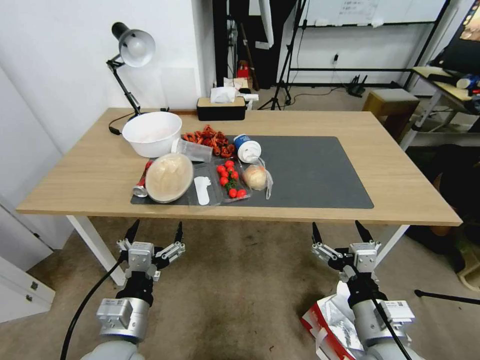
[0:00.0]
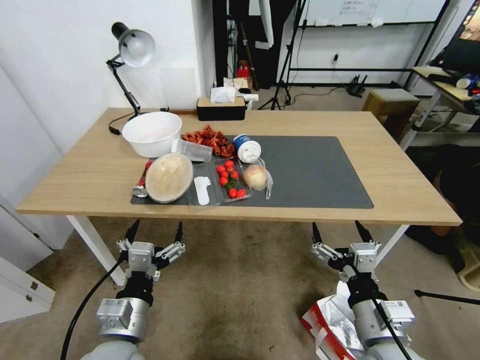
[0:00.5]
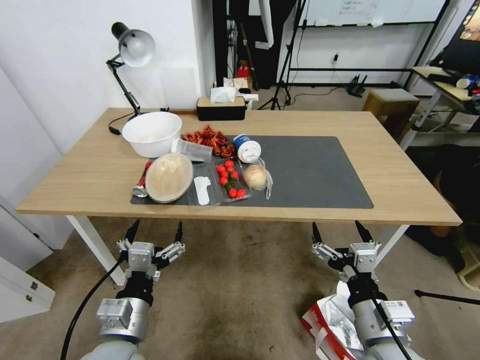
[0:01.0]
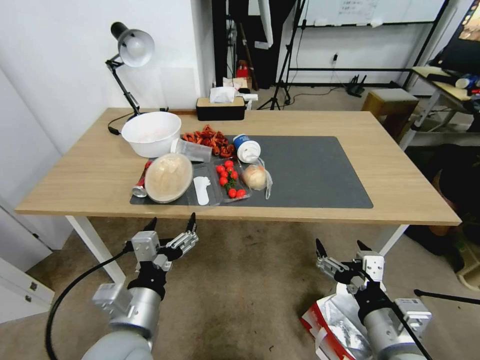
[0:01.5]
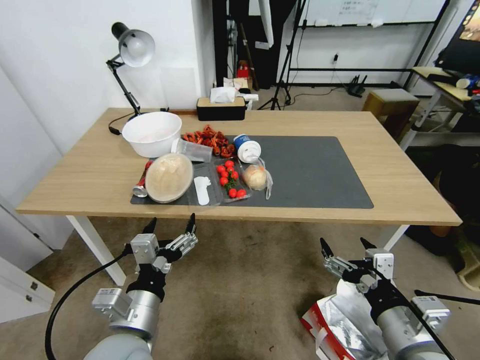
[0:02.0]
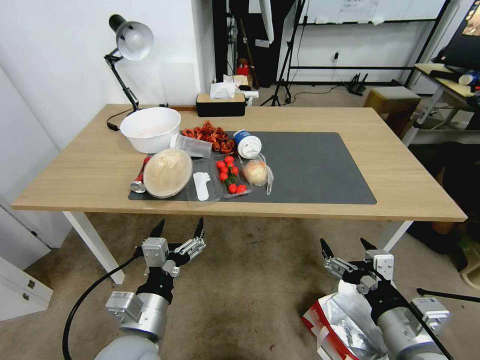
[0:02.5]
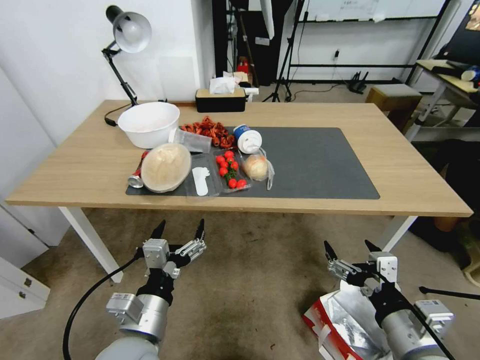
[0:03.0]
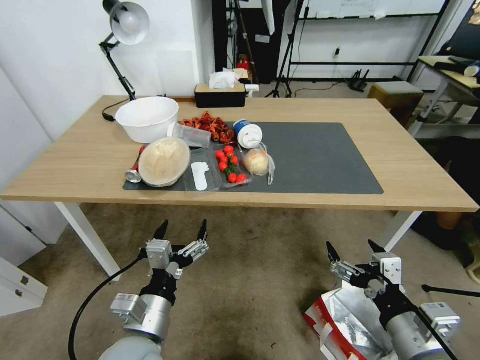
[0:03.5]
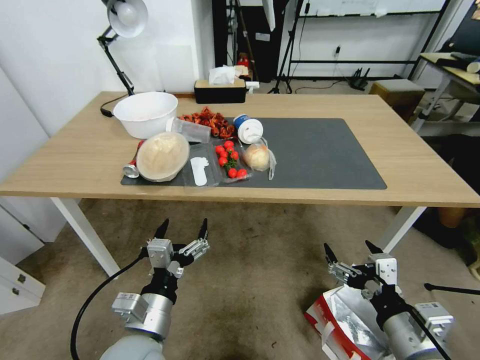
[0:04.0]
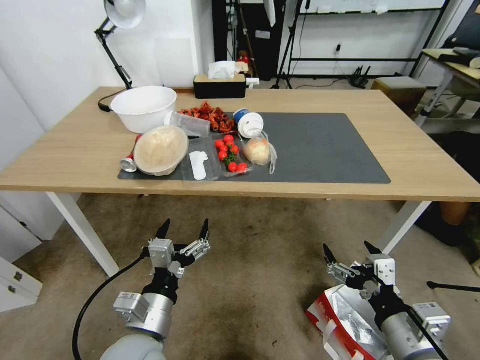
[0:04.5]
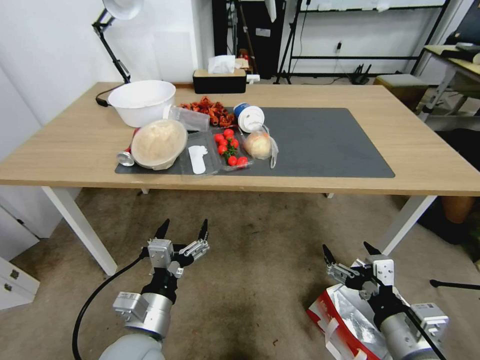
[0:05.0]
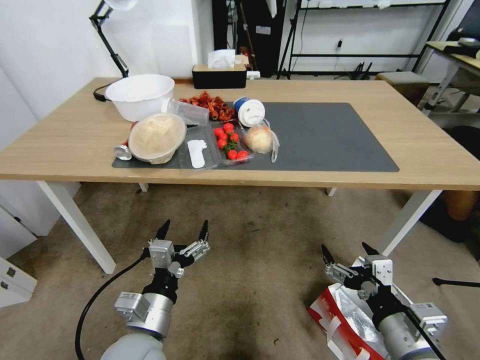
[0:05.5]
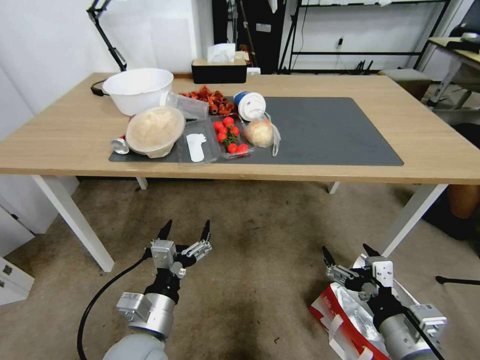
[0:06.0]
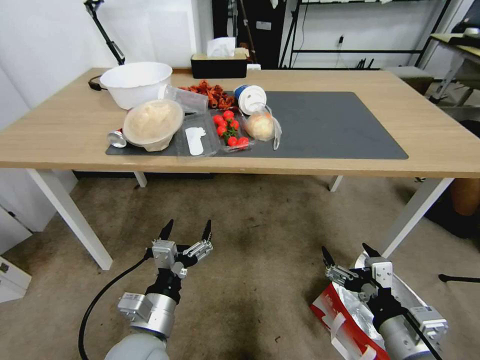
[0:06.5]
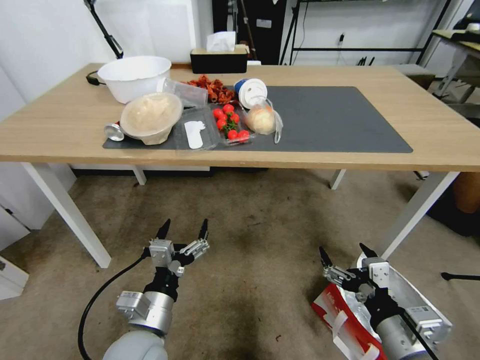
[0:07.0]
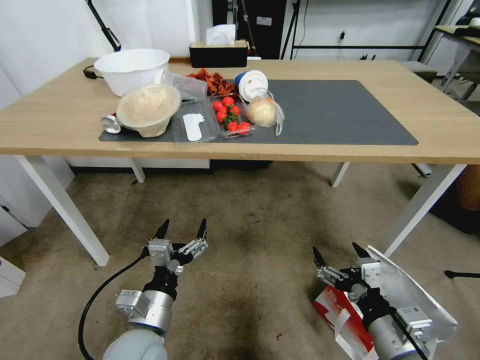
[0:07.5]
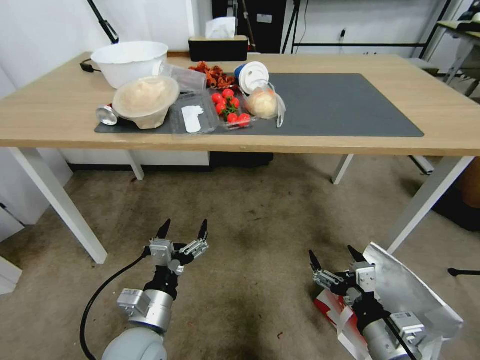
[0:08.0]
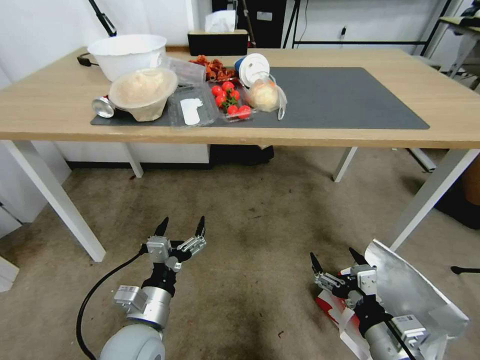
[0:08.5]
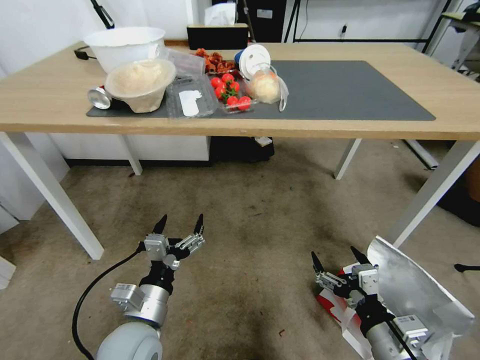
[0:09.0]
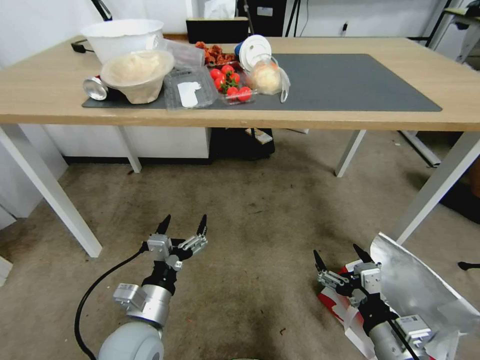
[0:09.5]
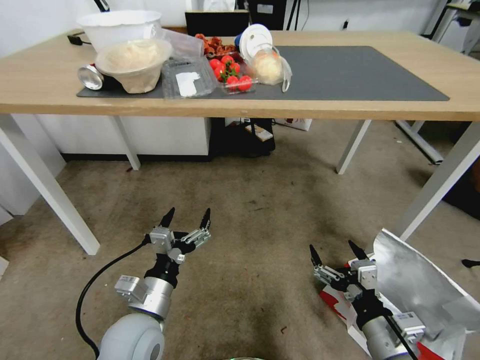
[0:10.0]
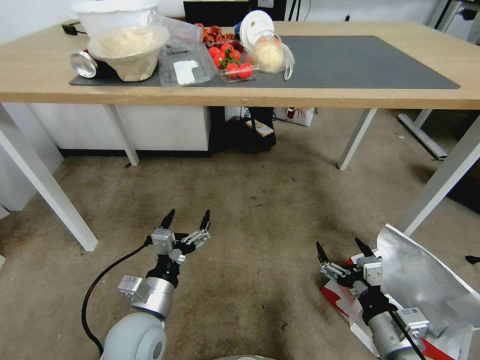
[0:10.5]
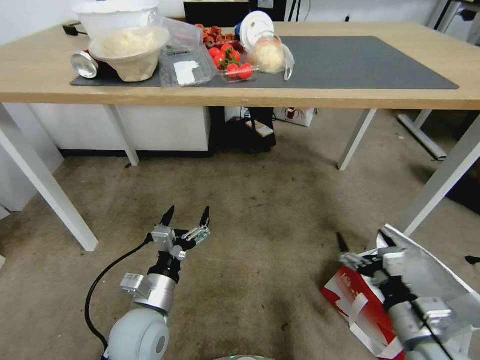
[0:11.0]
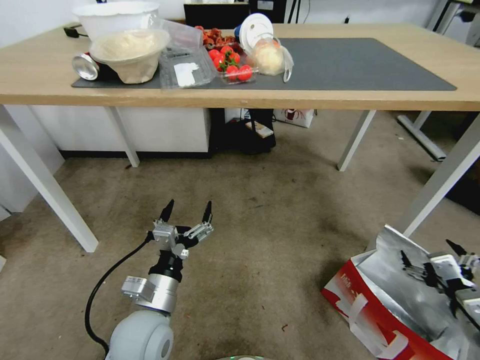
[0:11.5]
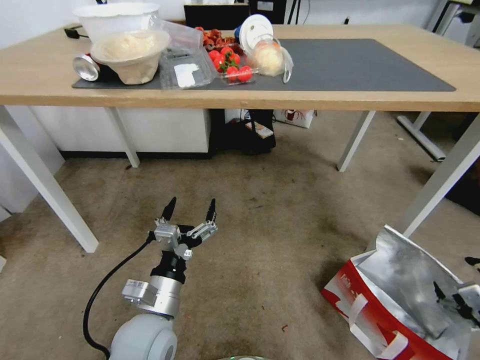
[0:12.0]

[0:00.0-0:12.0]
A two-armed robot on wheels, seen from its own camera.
Task of the whole recording: Pick up the food delivery bag from the floor and place it on the table.
0:10.0 to 0:12.0: The right gripper is displaced to the right by roughly 25 cm.

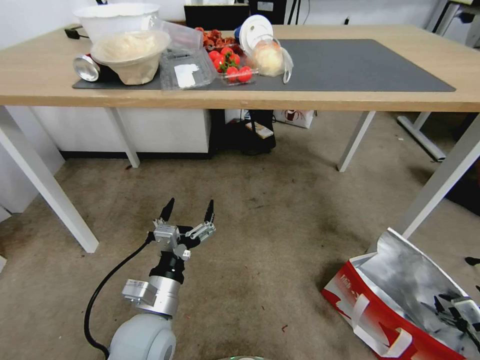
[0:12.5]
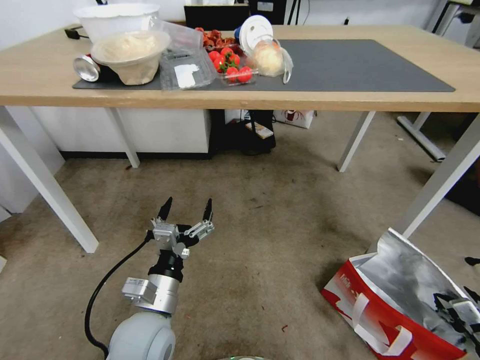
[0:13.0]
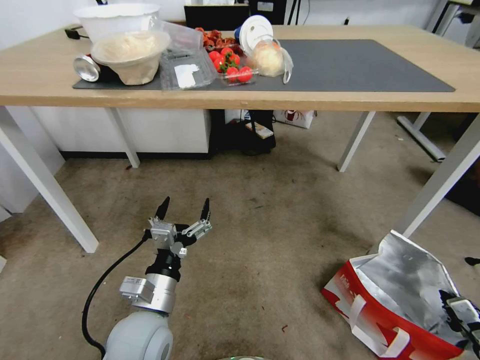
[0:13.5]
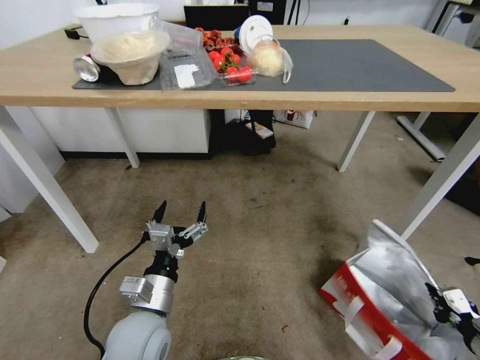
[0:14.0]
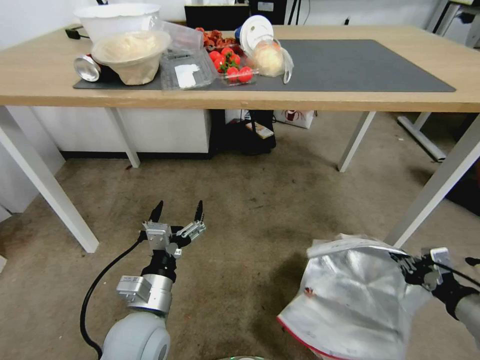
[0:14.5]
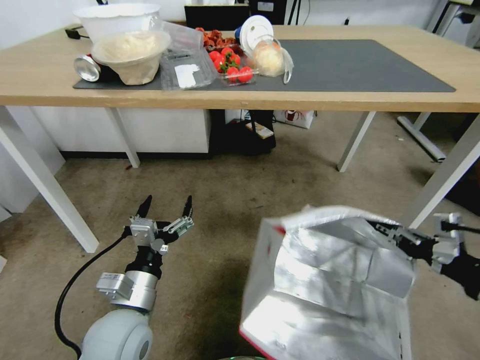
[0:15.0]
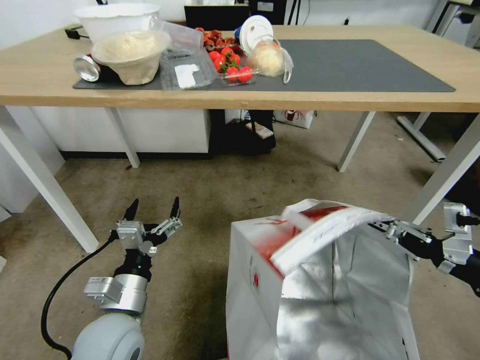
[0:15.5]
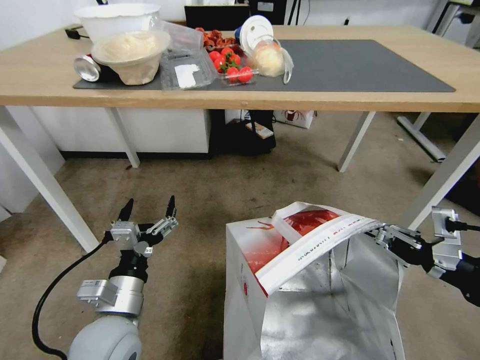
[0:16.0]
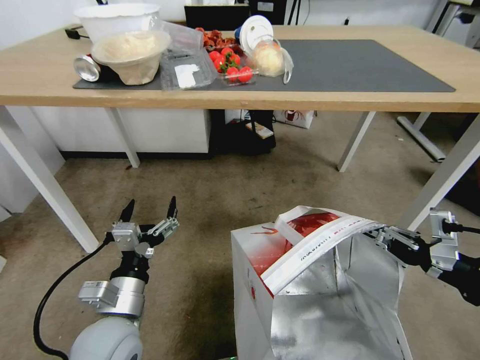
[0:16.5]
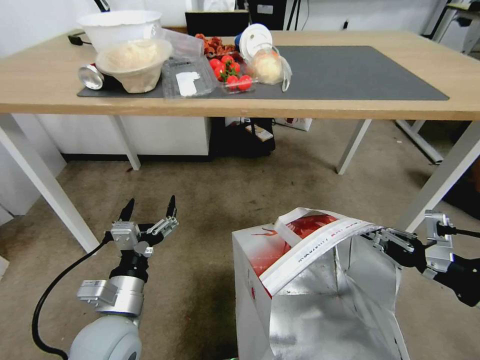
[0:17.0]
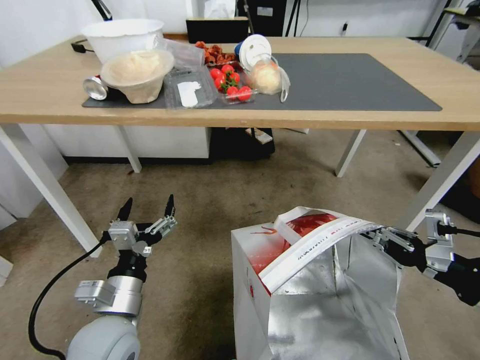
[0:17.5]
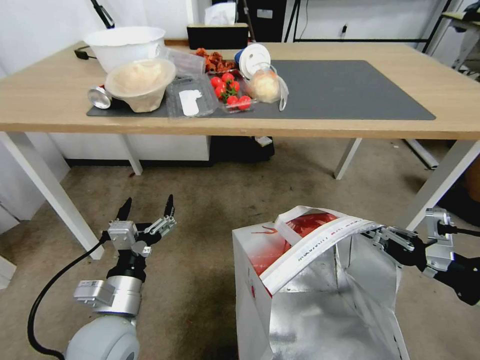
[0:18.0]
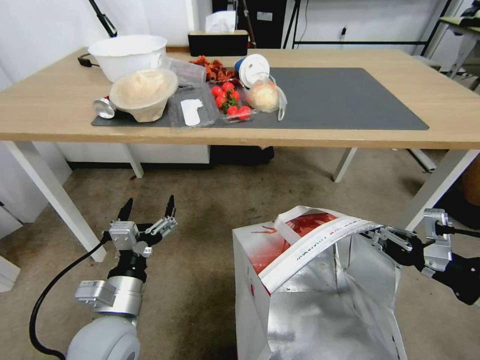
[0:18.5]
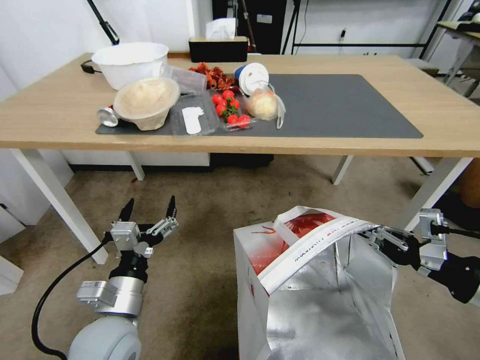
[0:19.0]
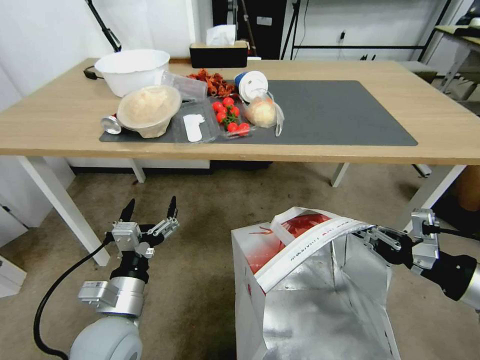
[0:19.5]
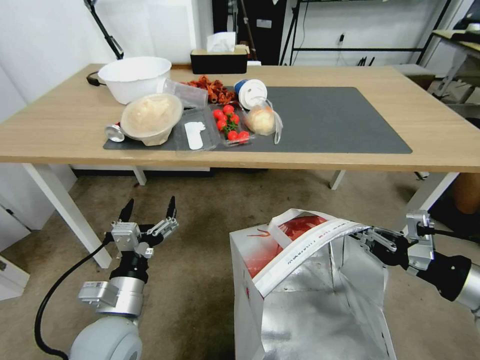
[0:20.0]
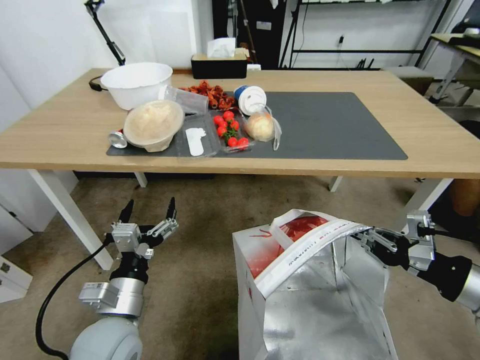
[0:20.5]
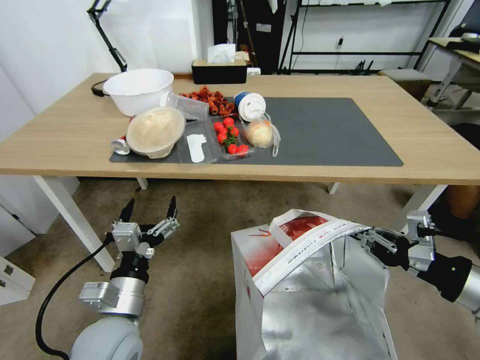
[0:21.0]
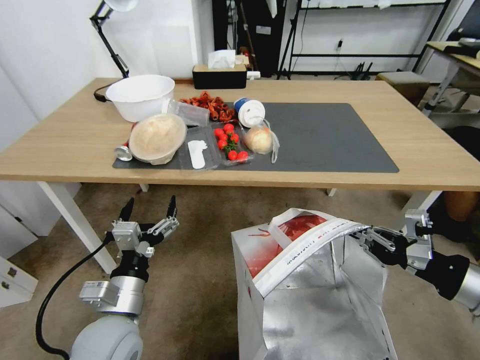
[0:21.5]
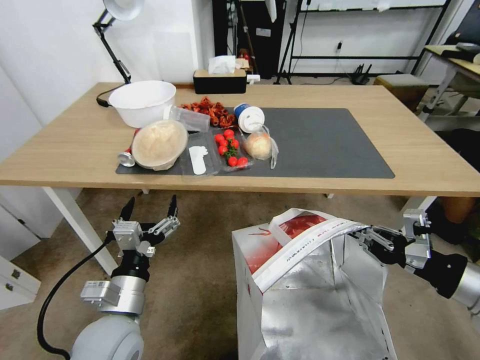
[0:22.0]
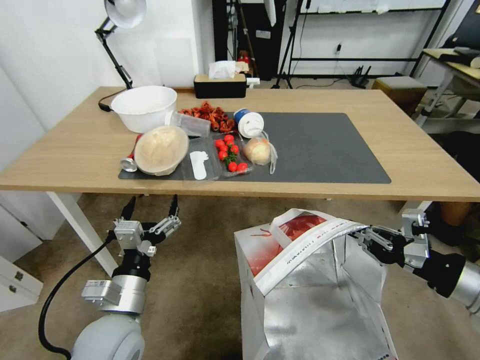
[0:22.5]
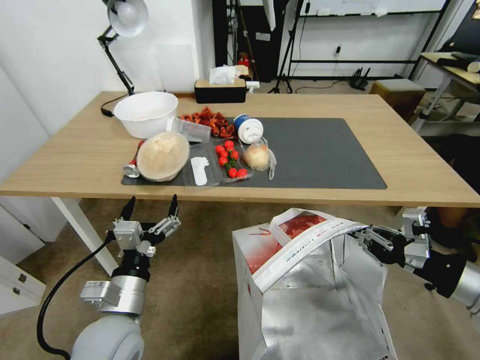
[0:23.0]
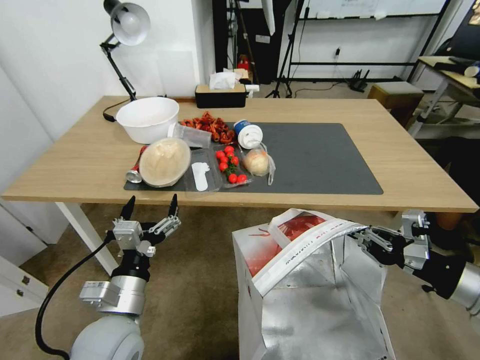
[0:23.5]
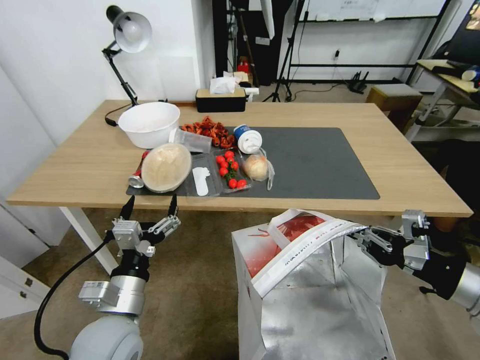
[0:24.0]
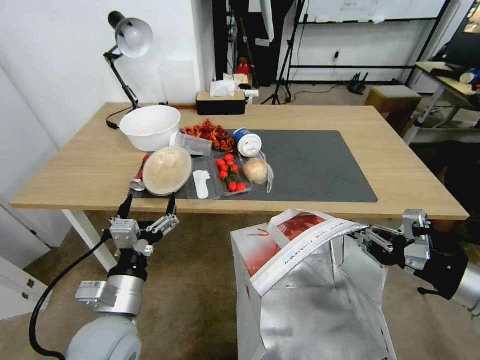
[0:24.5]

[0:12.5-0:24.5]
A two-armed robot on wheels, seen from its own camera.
Task of the whole recording: Pick up the food delivery bag from the floor and place it on the table.
0:12.5 to 0:14.5: The right gripper is displaced upward and to the left by roughly 20 cm, and closes up.
0:14.5 to 0:16.5: The right gripper moves upward, about 10 cm.

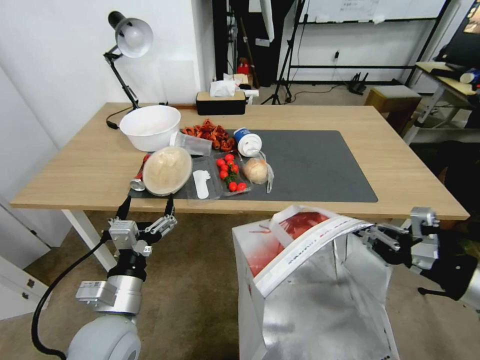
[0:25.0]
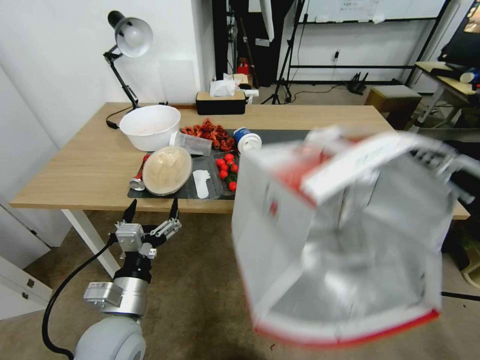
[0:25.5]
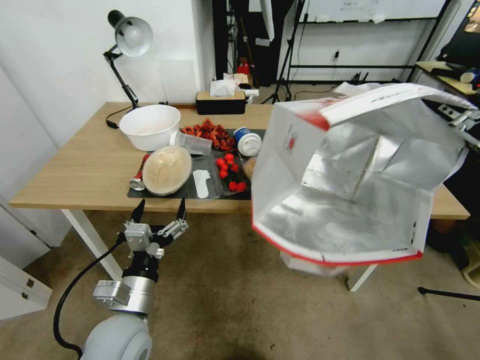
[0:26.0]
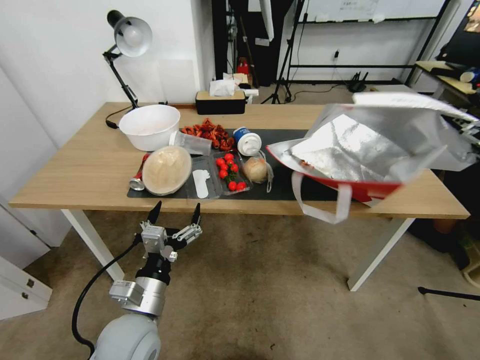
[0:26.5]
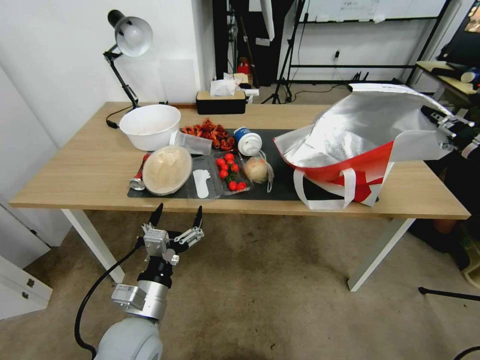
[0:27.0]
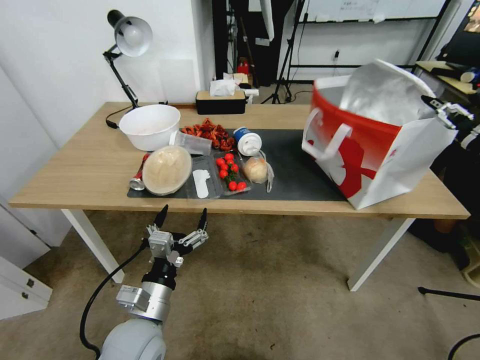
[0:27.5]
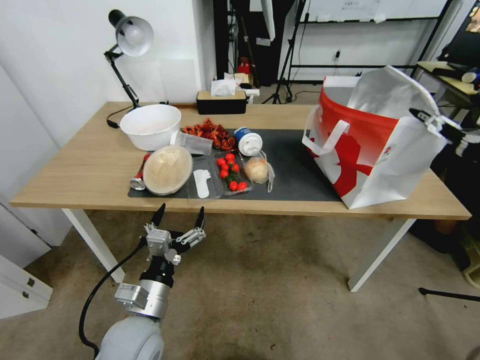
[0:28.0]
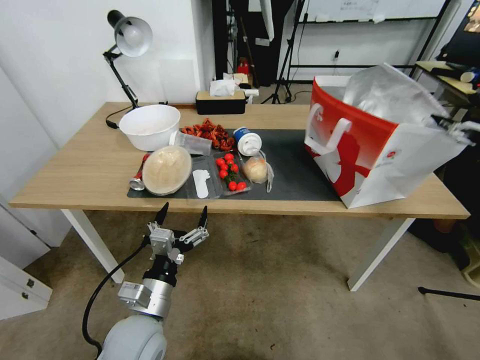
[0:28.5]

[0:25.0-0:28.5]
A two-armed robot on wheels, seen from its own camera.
Task of the whole recording: Pick up the food delivery bag from the floor and place it on the table.
0:25.0 to 0:27.0: The right gripper travels forward and to the right by roughly 20 cm.
0:27.0 to 0:28.5: The right gripper changes place by about 5 cm, and opens up.
